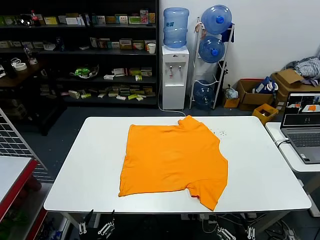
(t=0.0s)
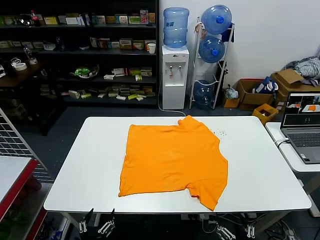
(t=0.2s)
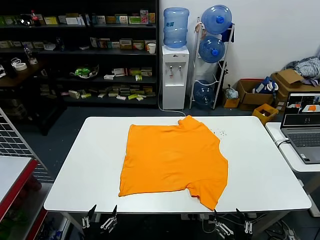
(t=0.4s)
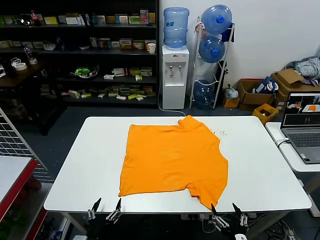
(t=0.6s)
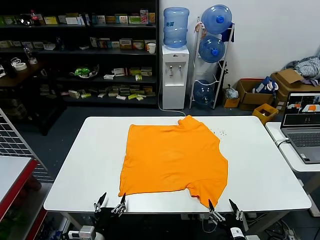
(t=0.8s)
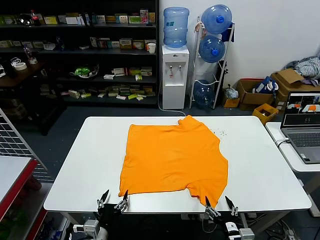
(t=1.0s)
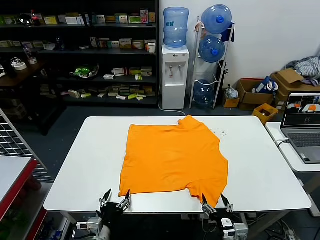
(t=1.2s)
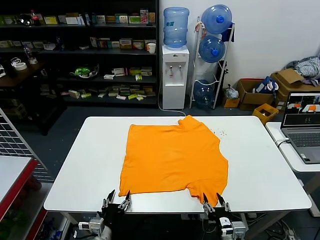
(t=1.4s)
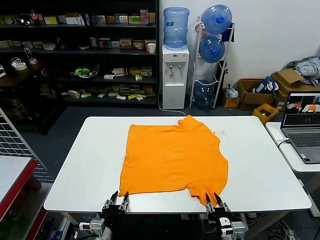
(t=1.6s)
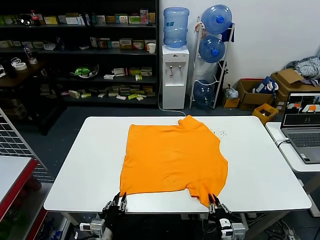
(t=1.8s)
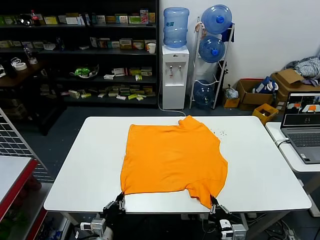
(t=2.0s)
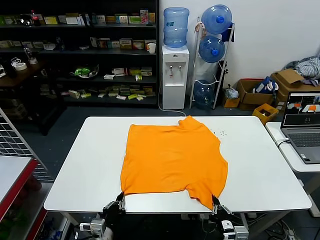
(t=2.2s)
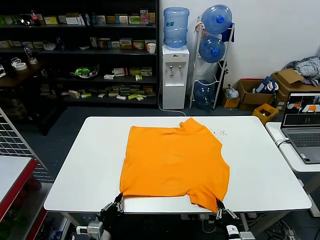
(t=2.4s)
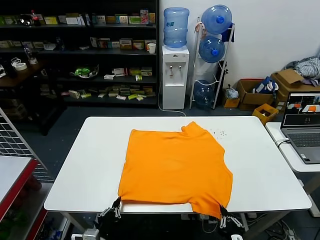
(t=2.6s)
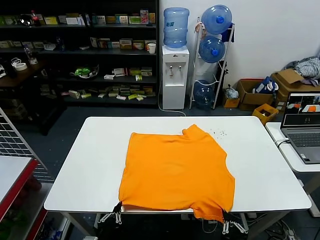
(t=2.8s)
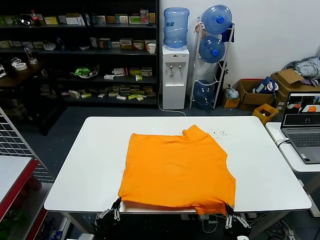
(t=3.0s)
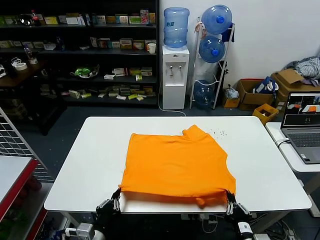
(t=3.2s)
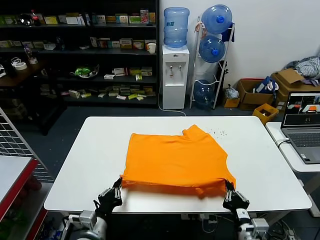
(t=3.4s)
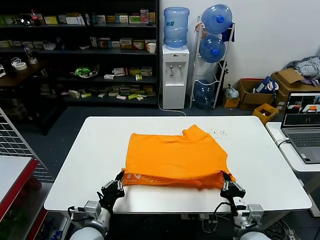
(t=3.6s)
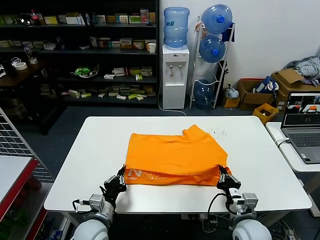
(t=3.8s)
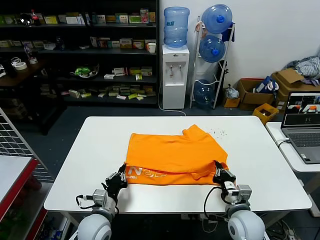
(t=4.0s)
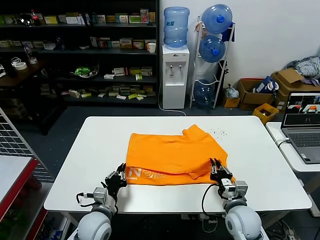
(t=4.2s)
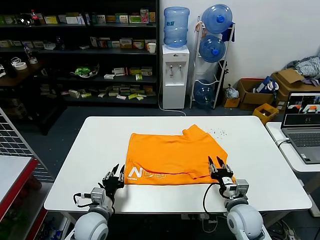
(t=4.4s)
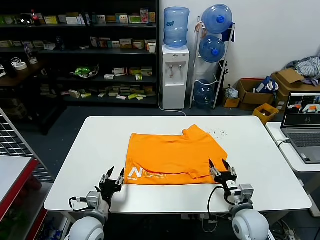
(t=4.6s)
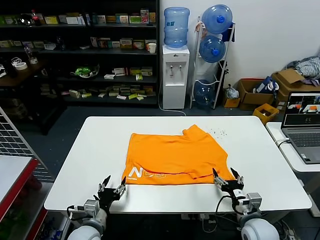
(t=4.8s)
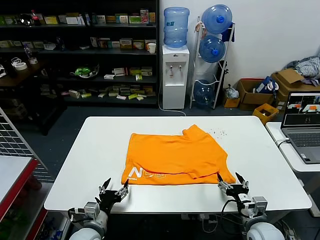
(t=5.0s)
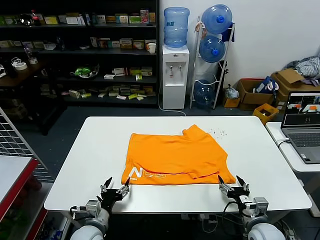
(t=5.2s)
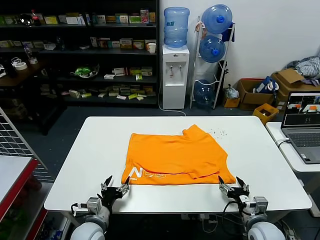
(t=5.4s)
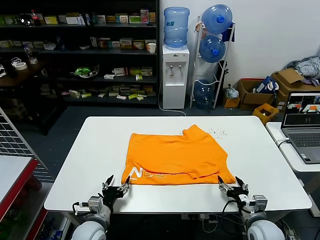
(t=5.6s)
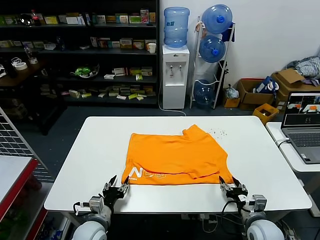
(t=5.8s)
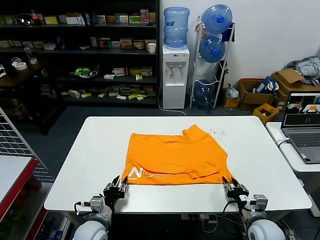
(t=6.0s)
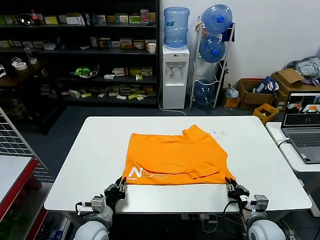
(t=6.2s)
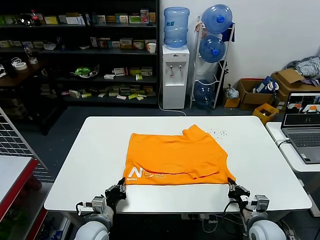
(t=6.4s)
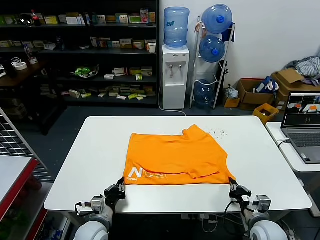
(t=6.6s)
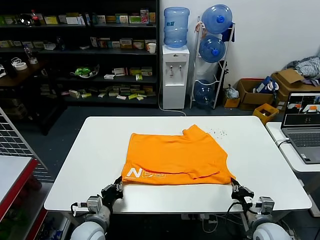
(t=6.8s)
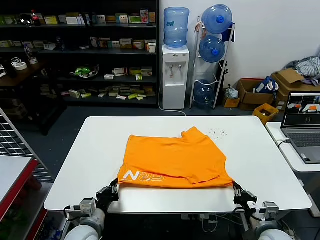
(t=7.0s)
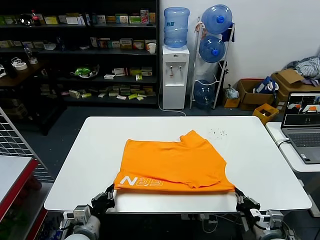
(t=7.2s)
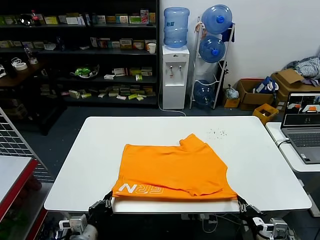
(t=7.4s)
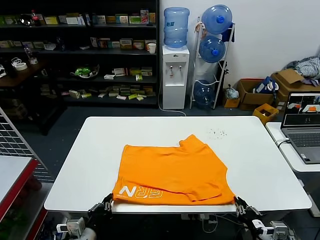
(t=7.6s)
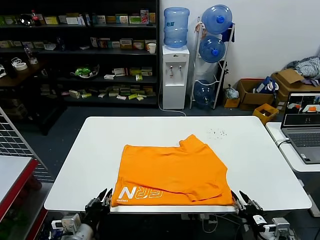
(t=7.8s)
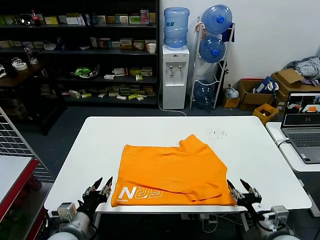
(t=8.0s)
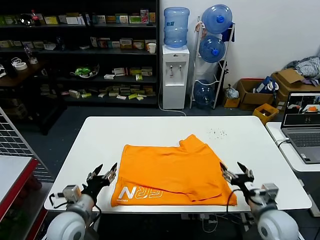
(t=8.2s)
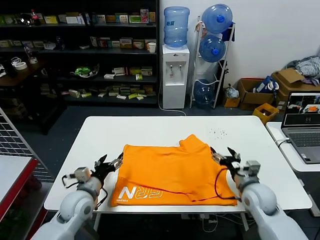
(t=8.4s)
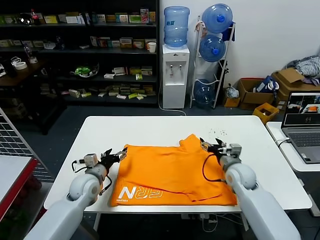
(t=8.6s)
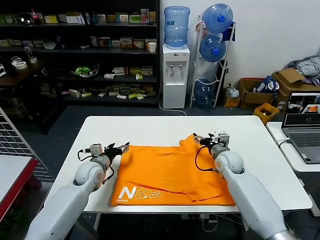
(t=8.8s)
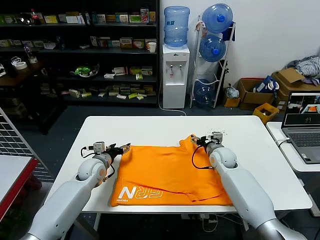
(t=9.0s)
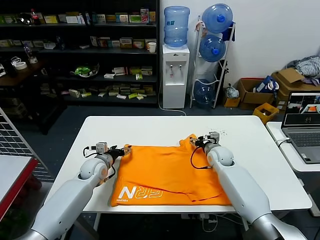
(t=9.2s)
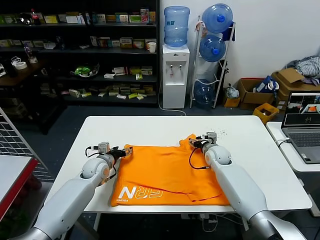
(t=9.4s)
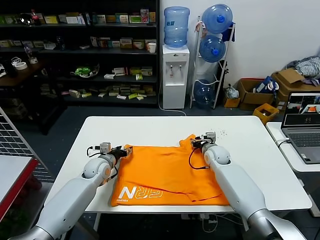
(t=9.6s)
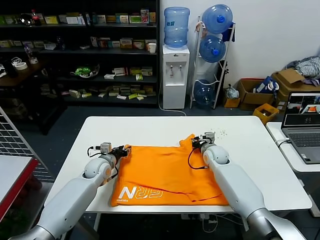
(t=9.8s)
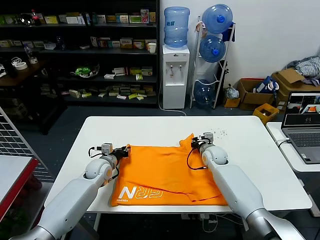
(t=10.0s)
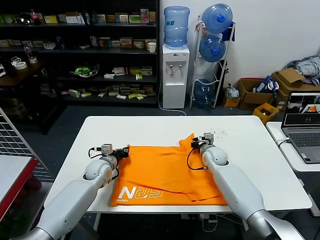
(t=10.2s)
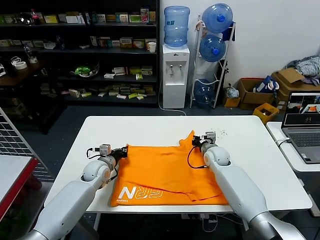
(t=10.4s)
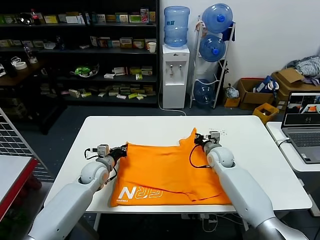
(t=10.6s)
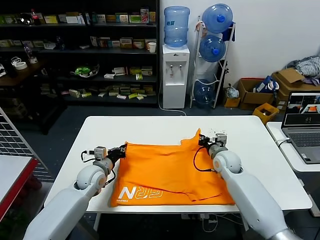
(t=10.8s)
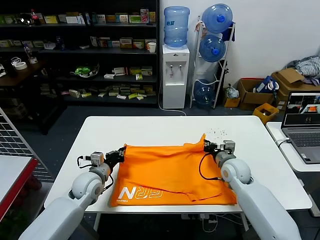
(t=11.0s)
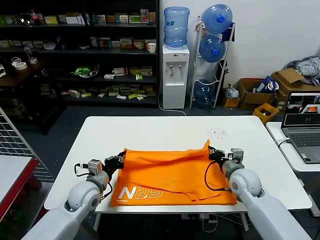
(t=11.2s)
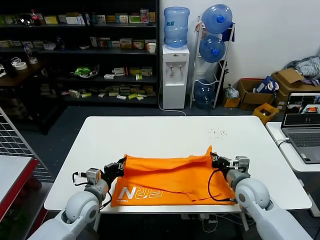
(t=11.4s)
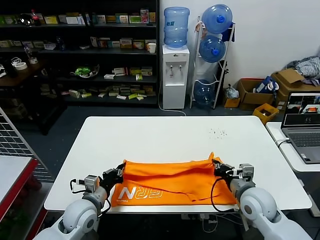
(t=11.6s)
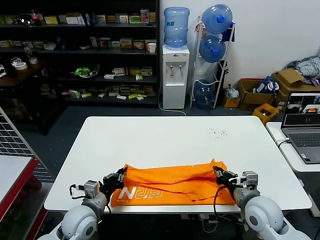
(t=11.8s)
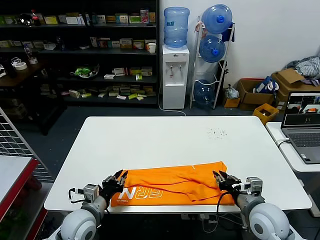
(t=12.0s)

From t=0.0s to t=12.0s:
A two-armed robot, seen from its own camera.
Task of the whole recording: fold and organize the clothes.
Step, from t=0.0s to t=2.0s: use both grippers simultaneously to clamp the lower edge of the clothing fabric.
Step, from t=2.2s to t=4.2s: use both grippers to drag the lower edge of the fabric forward and fold it over the upper edge.
Step, from t=4.4s to t=7.6s: Drag the clothes downward with both gripper.
Step, from t=7.8s to t=10.0s: use both grippers simultaneously to clamp the upper edge of the clothing fabric.
Step, from t=10.4s to t=11.8s: use both grippers to drag the upper edge of the fabric backward and fold it over the lower edge.
From t=1.6s to t=3.0s: Both grippers travel together backward and upward, approximately 10 cm. The right gripper closes. The left gripper closes its fingers.
From t=3.0s to t=4.4s: Both grippers move forward, roughly 15 cm. The right gripper opens its fingers.
From t=4.4s to t=6.0s: The left gripper opens and closes again. The right gripper goes some 5 cm to the right, and opens, then closes once more.
From t=6.0s to t=7.6s: The right gripper travels backward by about 10 cm; the left gripper travels backward and upward by some 10 cm, and closes.
From t=7.6s to t=9.0s: Both grippers travel together forward, roughly 30 cm. The right gripper opens up. Meanwhile the left gripper opens.
From t=9.0s to t=10.4s: The left gripper closes its fingers. Meanwhile the right gripper closes.
From t=10.4s to t=12.0s: The two grippers go roughly 25 cm backward. The right gripper opens up.

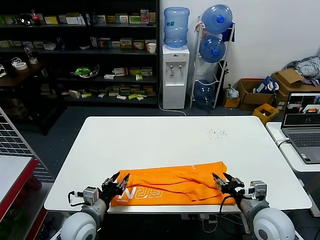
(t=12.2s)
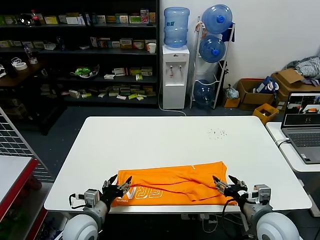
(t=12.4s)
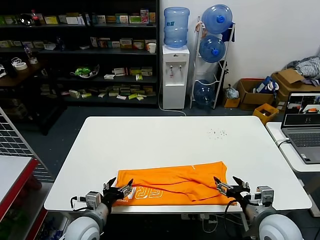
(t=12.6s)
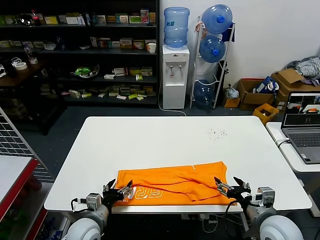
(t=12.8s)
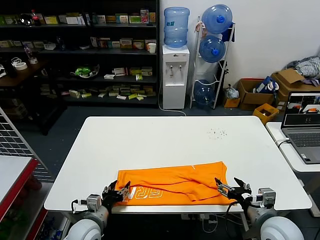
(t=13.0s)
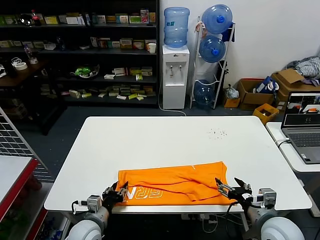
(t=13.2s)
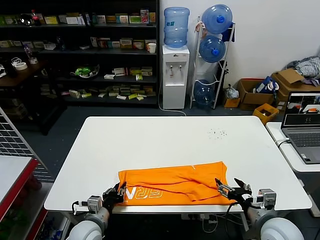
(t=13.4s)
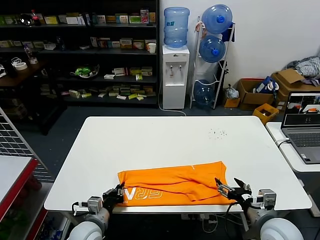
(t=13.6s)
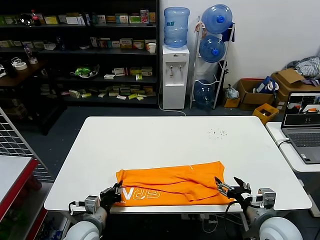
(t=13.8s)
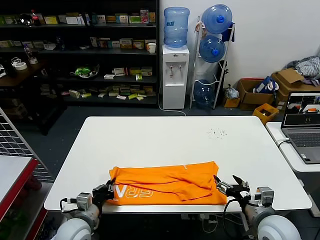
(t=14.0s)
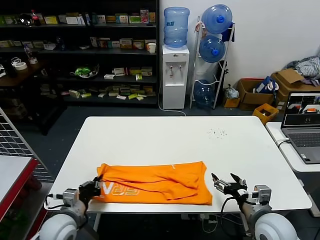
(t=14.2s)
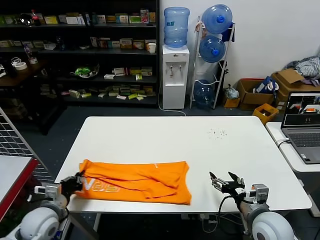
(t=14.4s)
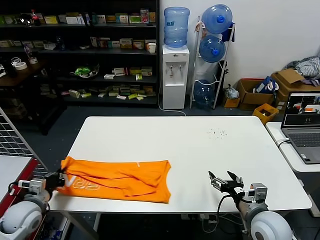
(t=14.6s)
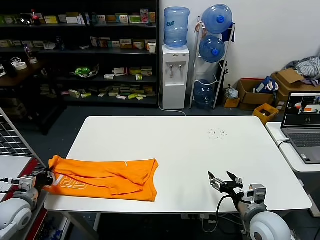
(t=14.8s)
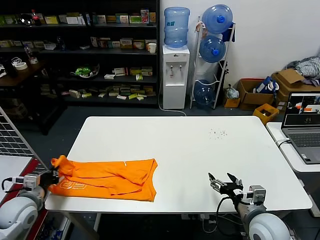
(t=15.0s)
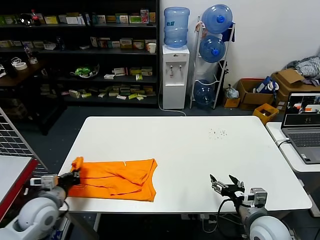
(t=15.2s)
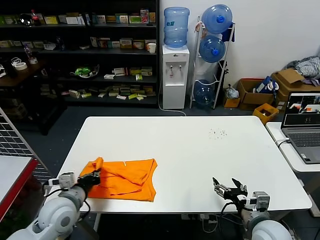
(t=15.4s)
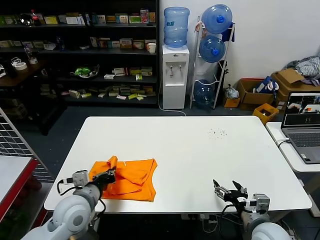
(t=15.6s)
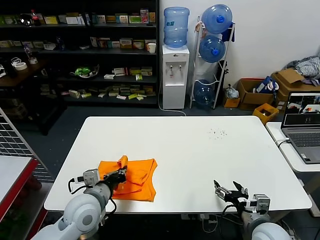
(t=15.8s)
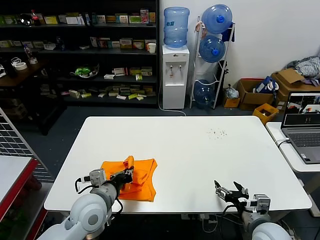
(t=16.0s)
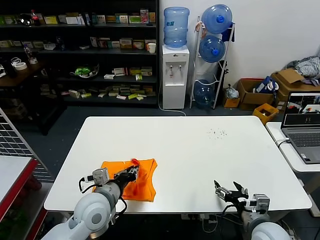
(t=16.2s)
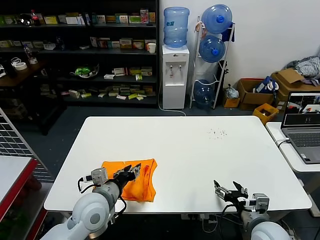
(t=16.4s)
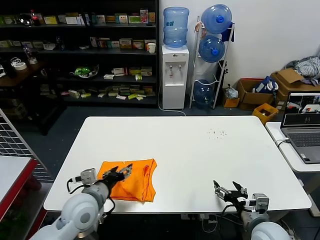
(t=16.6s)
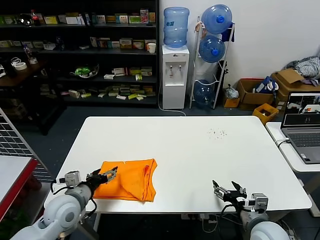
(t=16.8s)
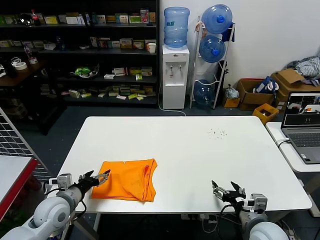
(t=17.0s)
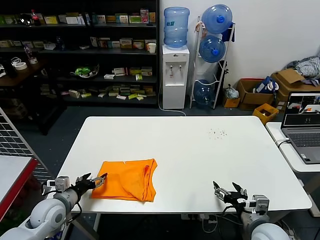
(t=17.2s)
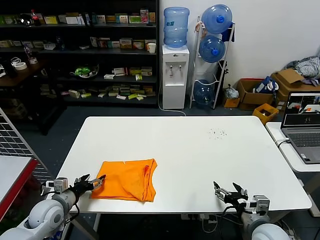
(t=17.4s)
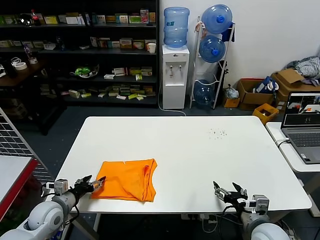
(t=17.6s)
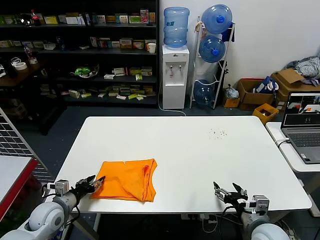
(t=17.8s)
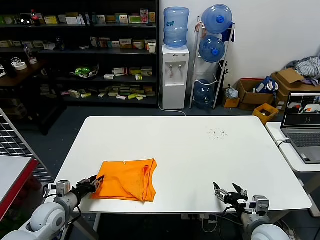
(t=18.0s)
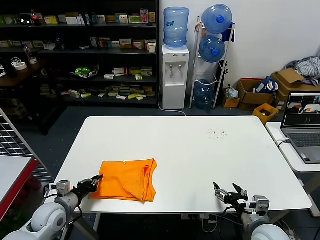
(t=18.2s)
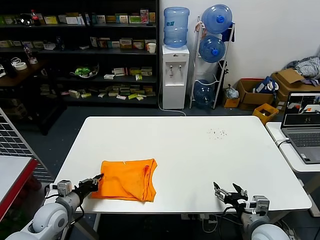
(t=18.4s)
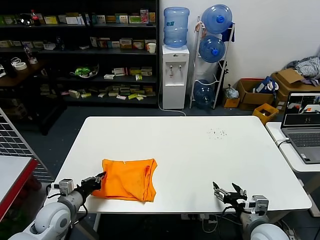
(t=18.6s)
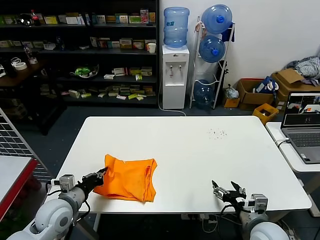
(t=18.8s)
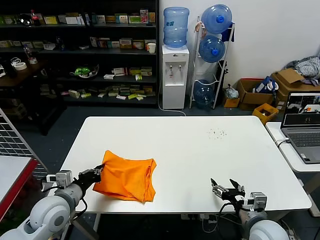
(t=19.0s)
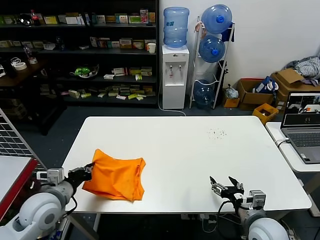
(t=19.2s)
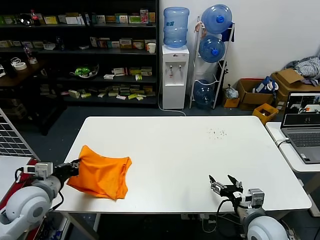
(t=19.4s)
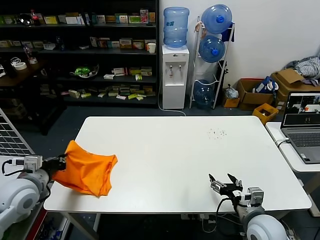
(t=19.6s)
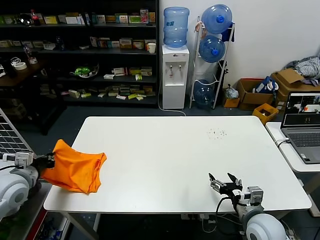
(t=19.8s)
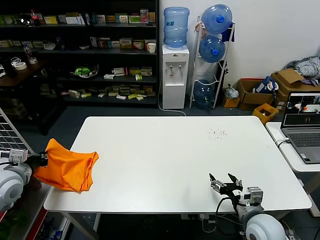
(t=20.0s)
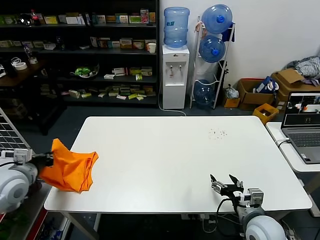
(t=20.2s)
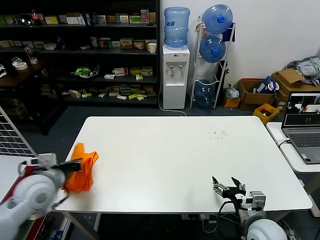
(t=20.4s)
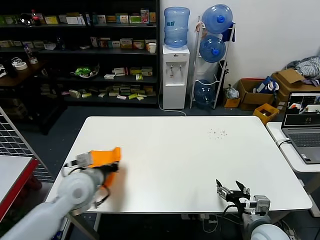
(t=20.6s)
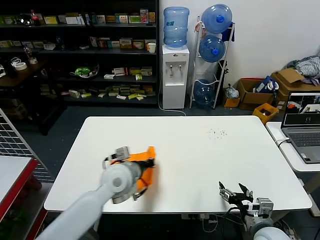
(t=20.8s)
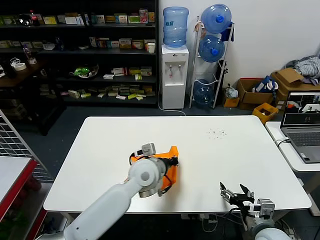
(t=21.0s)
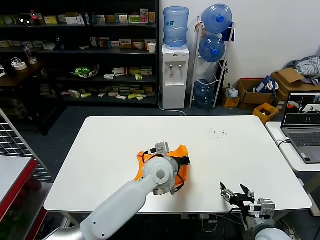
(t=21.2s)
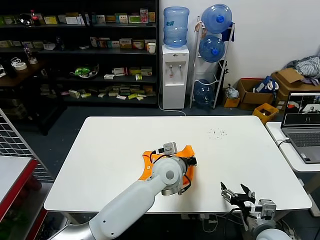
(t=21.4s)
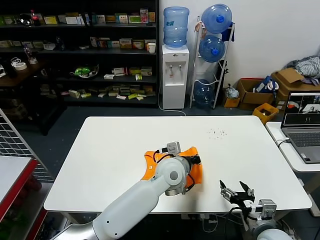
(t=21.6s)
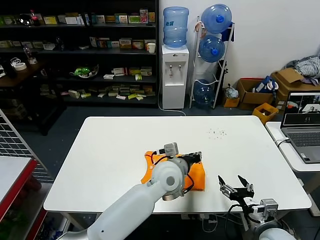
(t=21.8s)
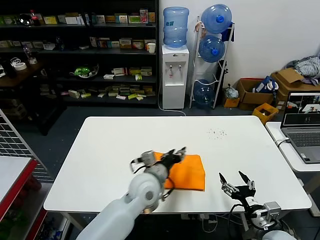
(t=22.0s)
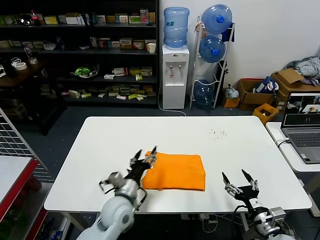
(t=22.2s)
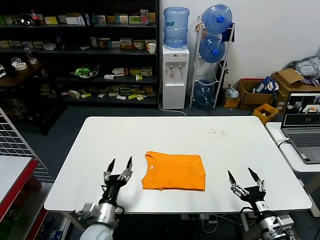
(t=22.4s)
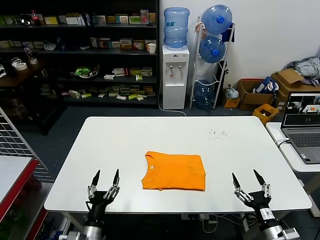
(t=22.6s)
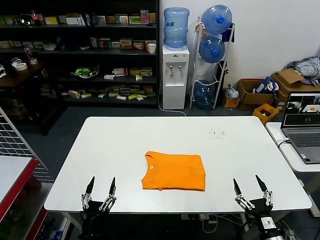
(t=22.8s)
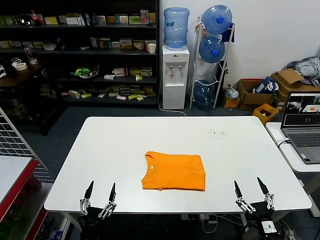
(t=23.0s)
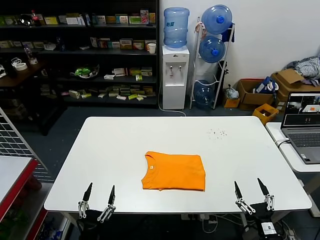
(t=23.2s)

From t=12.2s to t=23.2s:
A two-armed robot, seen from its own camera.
Task of the whole recording: fold and organize the clothes.
Step, from t=12.2s to t=13.6s: use the left gripper to clamp the left edge of the fabric.
Step, from t=13.8s to t=16.2s: use the left gripper to drag the left edge of the fabric to the left and folds it over the right edge.
Step, from t=16.4s to t=21.6s: Flip the folded clothes over with left gripper.
From t=12.2s to t=13.8s: The left gripper closes its fingers; the right gripper opens up.
From t=13.8s to t=15.4s: The left gripper travels upward by some 10 cm, and travels to the left and back again, about 20 cm each way.
From t=15.4s to t=17.0s: The left gripper travels to the right and back again, some 10 cm each way, and opens its fingers.
From t=17.0s to t=18.4s: The left gripper moves about 5 cm, and closes up.
From t=18.4s to t=20.0s: The left gripper moves upward and to the left, roughly 20 cm.
From t=20.0s to t=21.6s: The left gripper heads to the right, covering roughly 50 cm.
From t=21.6s to t=23.2s: The left gripper heads to the left, backward and downward, covering approximately 40 cm, and opens its fingers. Meanwhile the right gripper shifts about 10 cm downward and backward.
